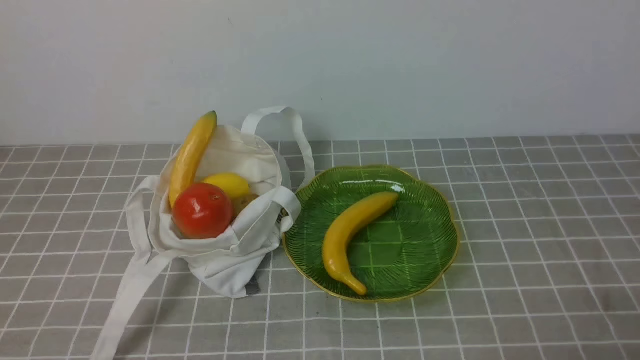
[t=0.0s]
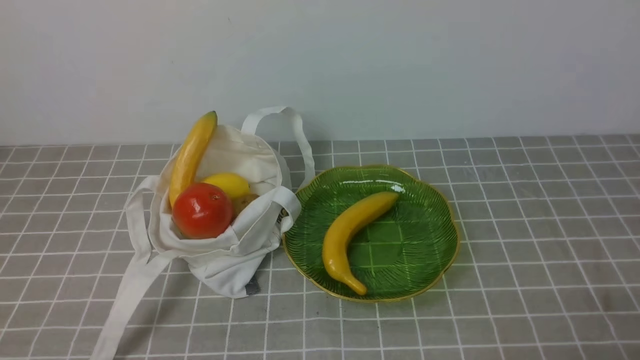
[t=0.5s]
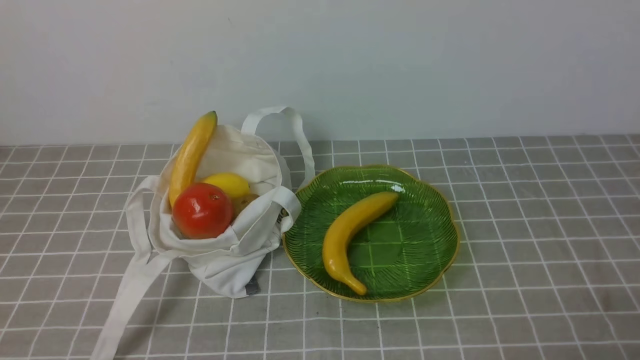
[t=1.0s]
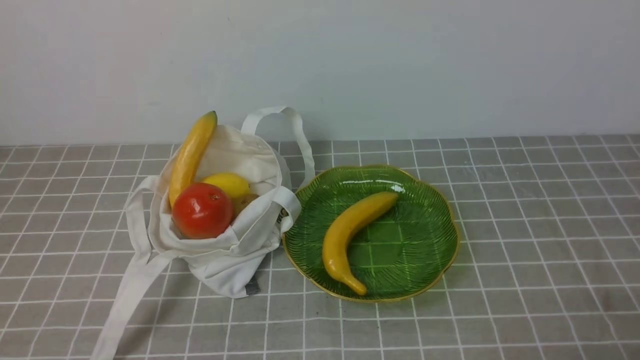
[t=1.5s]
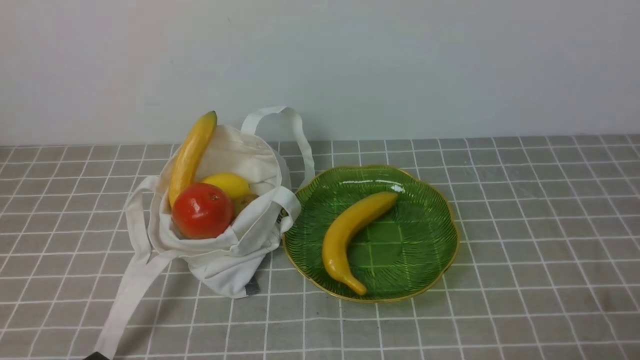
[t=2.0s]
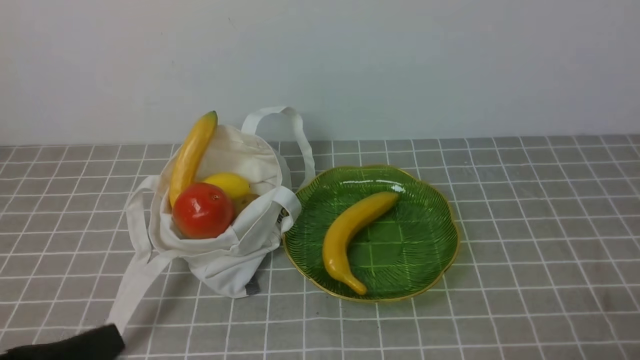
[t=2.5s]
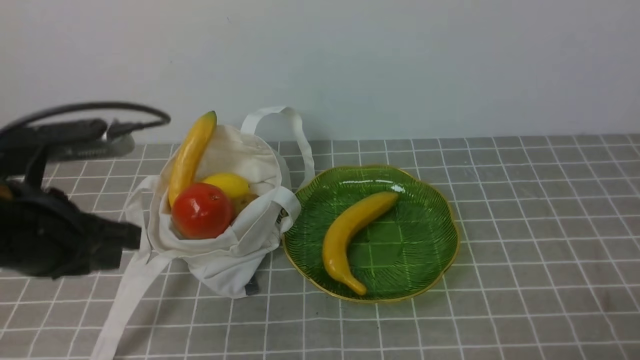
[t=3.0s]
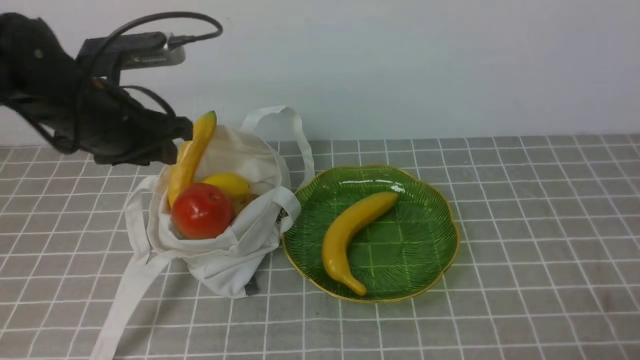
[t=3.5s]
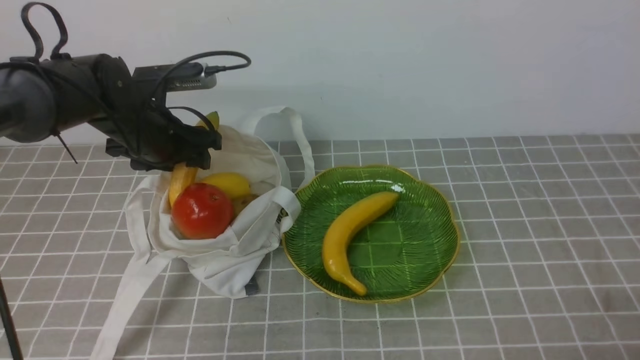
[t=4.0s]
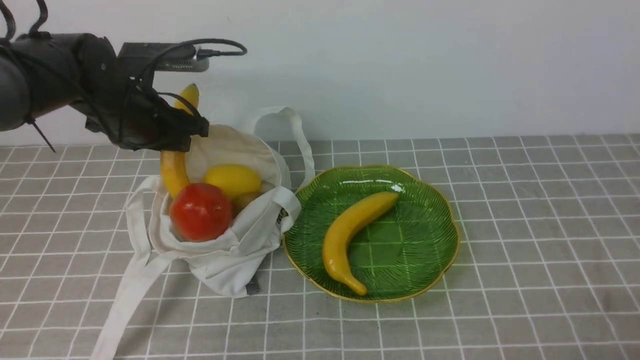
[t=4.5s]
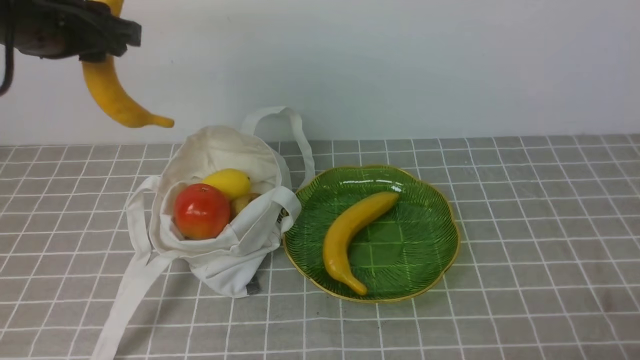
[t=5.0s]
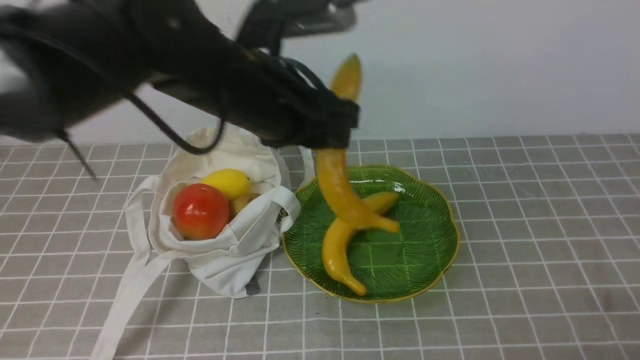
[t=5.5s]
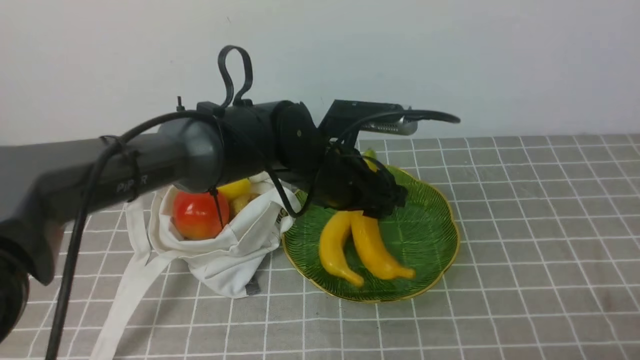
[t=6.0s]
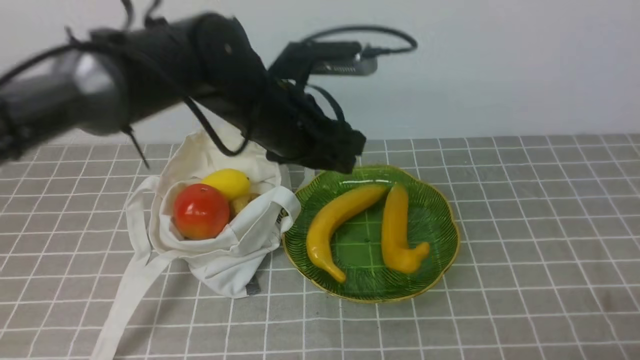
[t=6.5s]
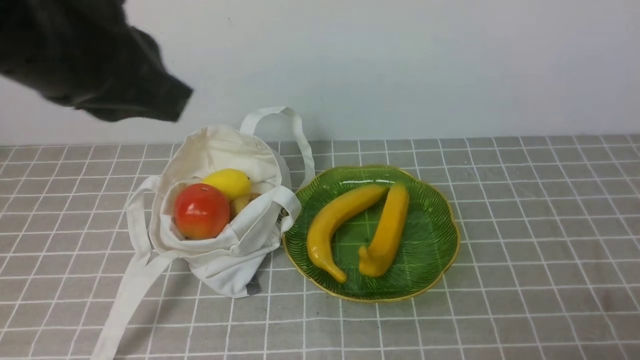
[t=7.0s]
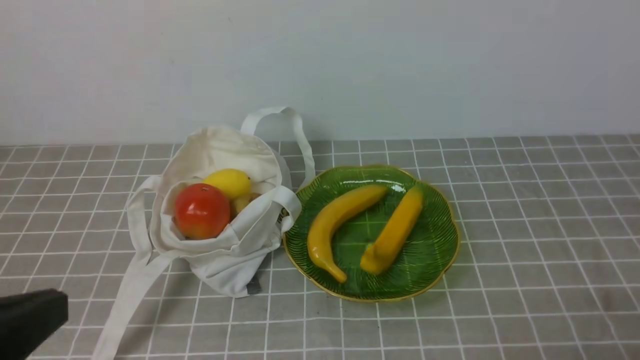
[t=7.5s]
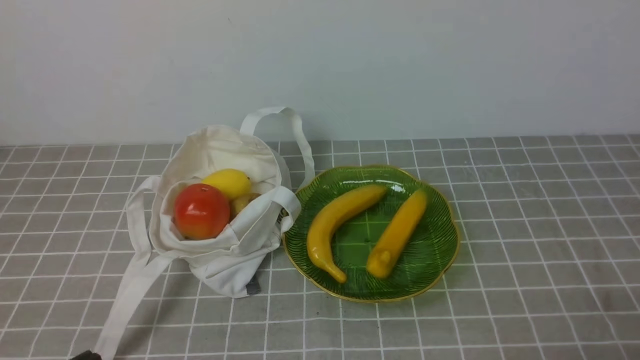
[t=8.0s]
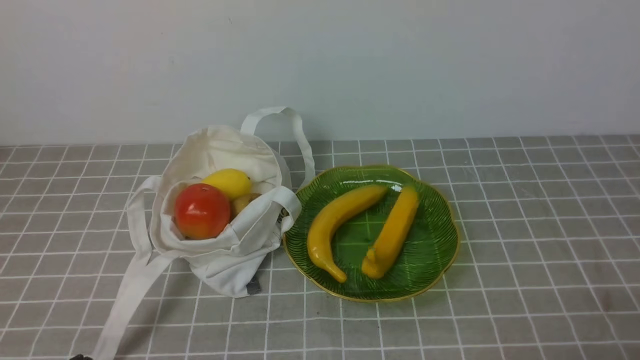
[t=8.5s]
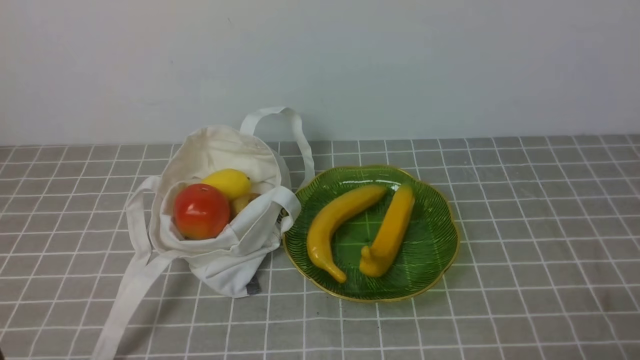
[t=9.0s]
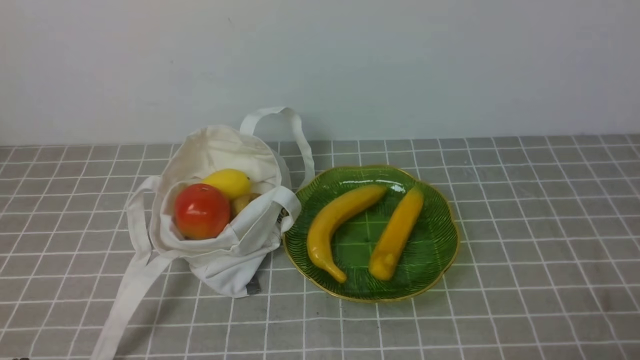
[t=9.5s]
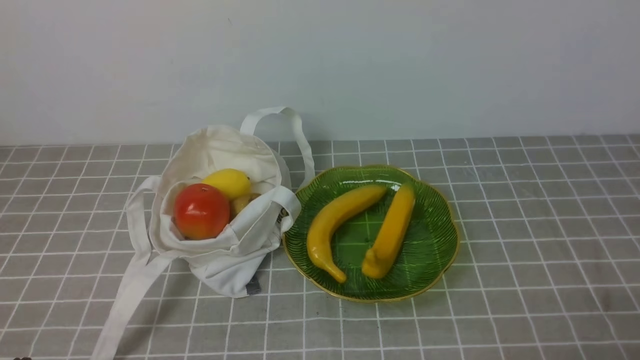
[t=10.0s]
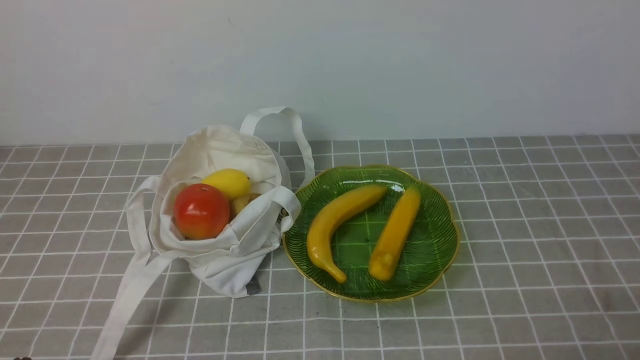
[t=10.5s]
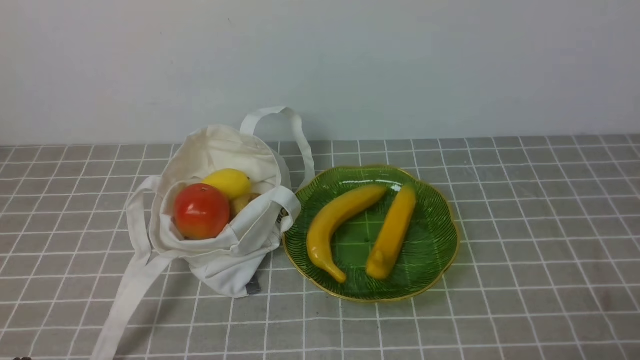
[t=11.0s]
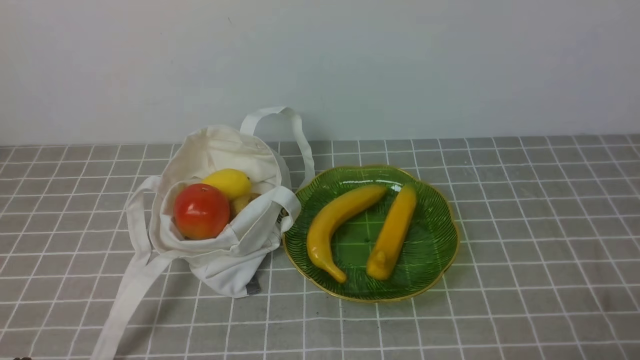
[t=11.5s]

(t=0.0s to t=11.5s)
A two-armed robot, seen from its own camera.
Step, t=0.0s - t=4.0s: use the left arm to grab a banana from the bag.
Step, t=5.0s - t=6.0s: use the left arm to put the banana into the empty plate on the right.
t=2.0s - t=4.0s: The left gripper heads forward, covering approximately 35 cm, and opens its fingers.
t=4.0s - t=6.0s: The left gripper heads to the right, covering approximately 20 cm.
t=6.0s - t=7.5s: The left gripper heads backward, to the left and upward, covering roughly 35 cm, and closes up.
t=7.5s - t=9.5s: The left gripper travels downward by about 20 cm.
t=9.5s - t=11.5s: Both grippers stay put.

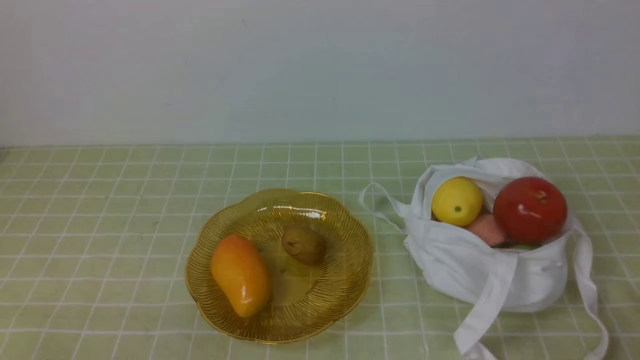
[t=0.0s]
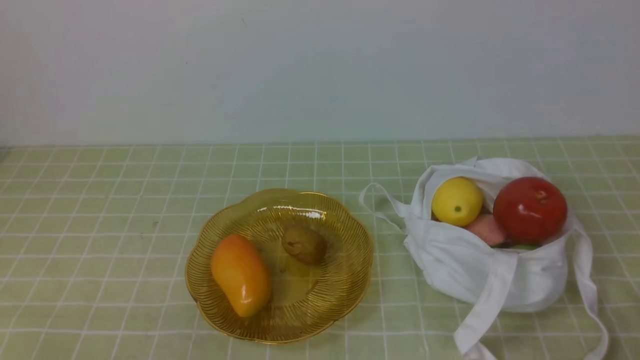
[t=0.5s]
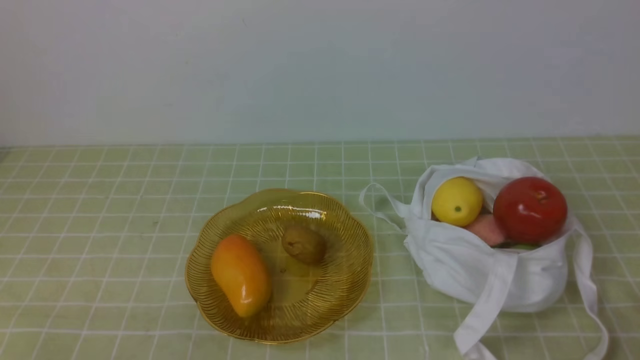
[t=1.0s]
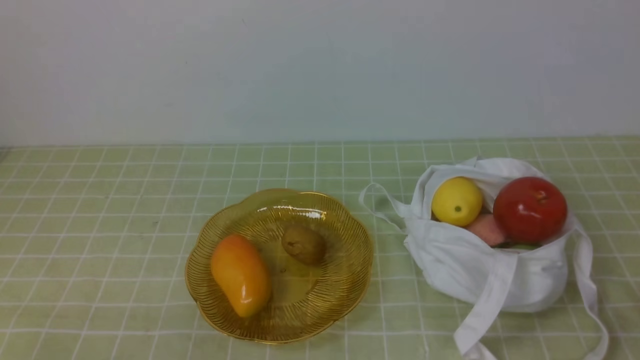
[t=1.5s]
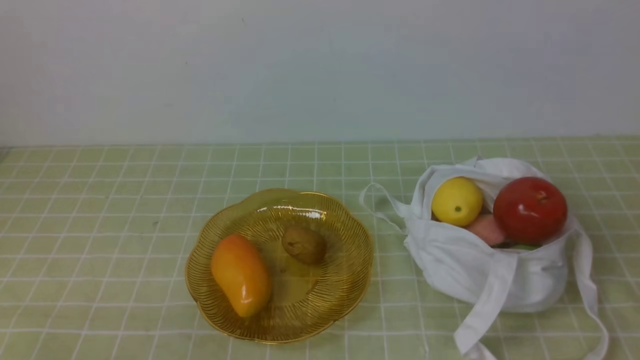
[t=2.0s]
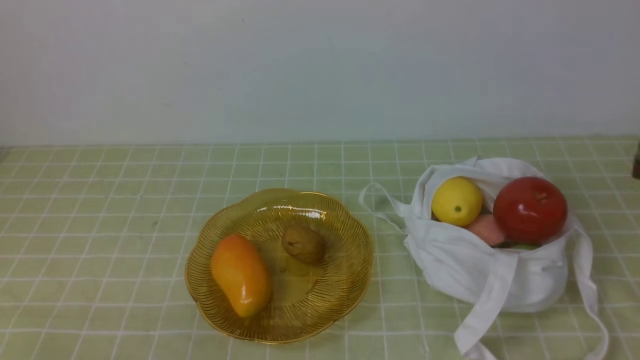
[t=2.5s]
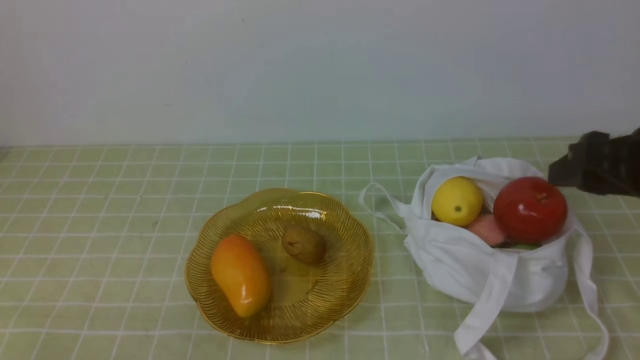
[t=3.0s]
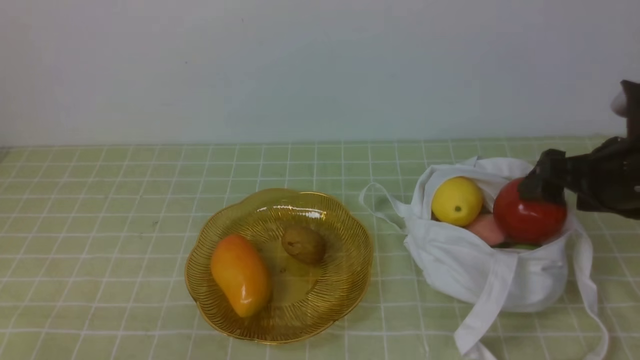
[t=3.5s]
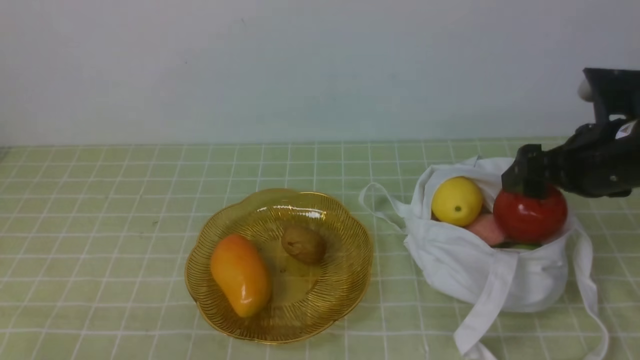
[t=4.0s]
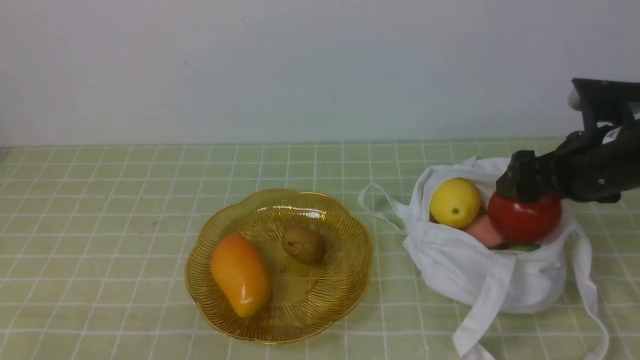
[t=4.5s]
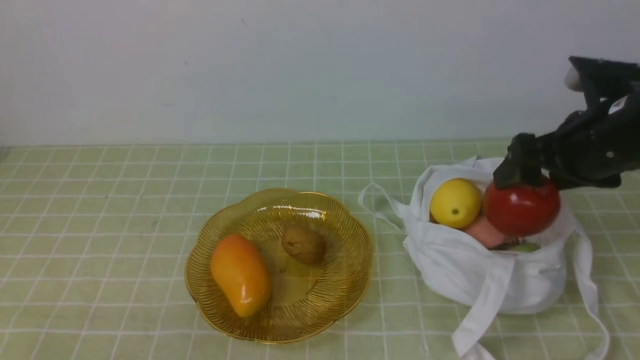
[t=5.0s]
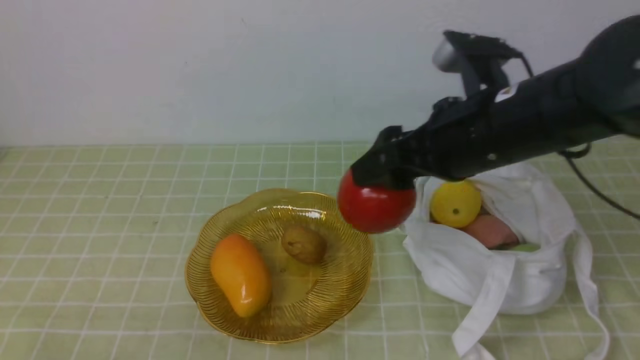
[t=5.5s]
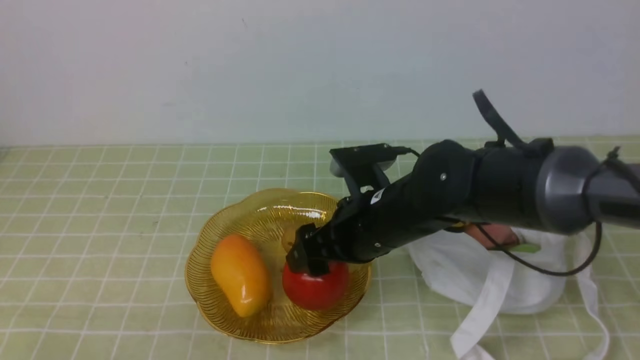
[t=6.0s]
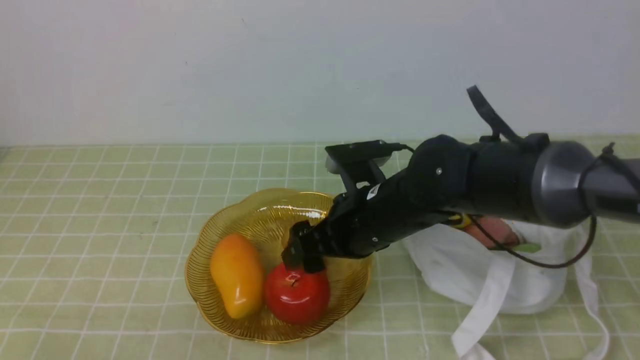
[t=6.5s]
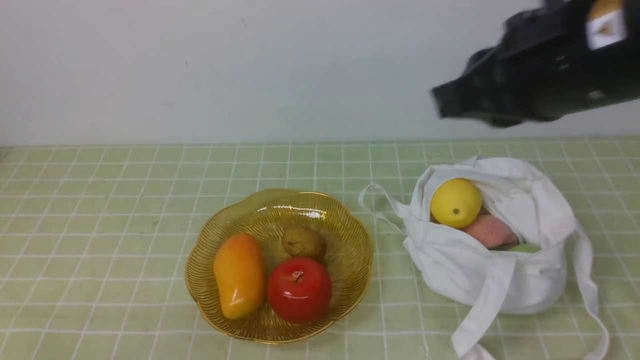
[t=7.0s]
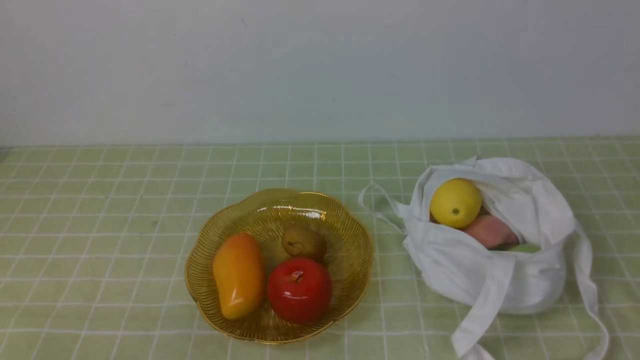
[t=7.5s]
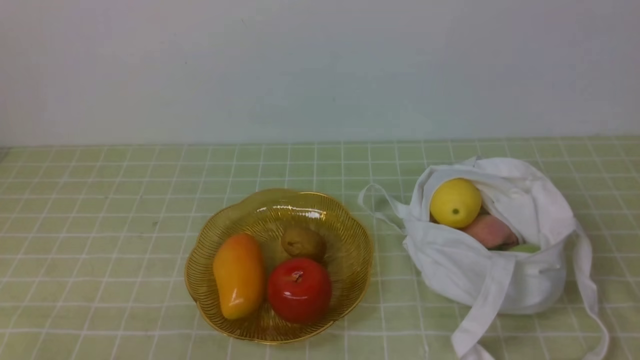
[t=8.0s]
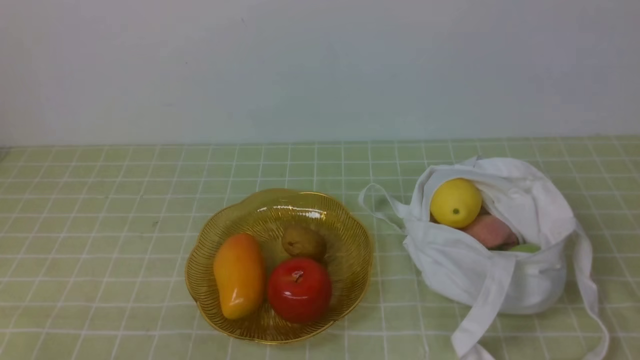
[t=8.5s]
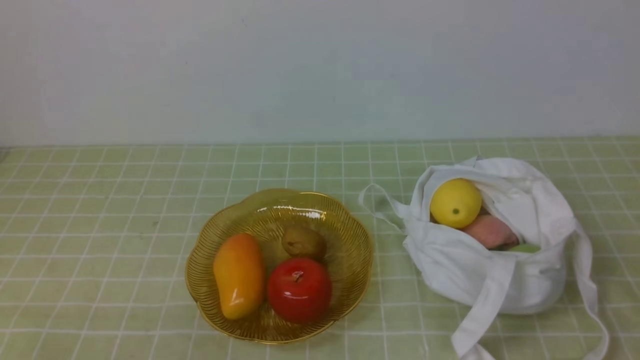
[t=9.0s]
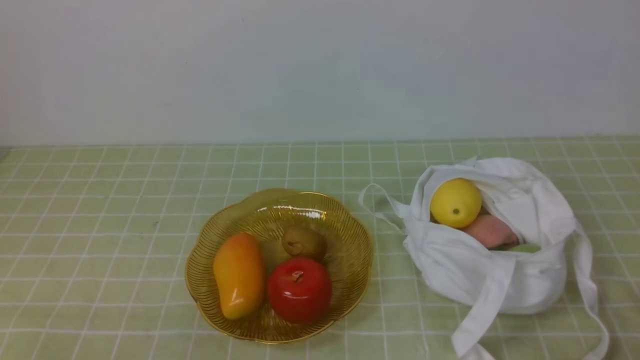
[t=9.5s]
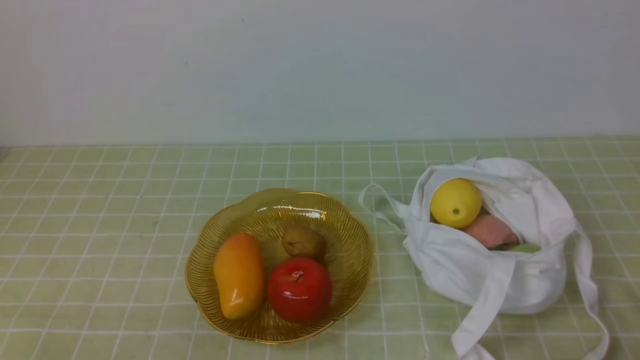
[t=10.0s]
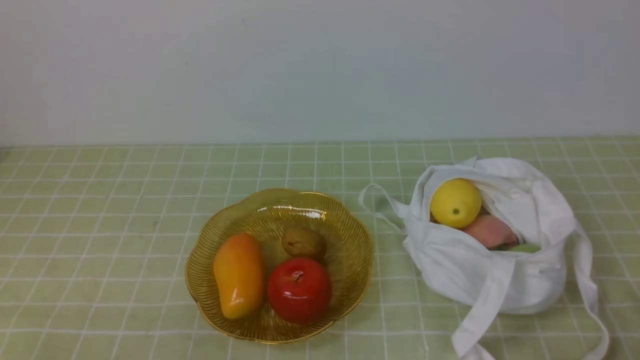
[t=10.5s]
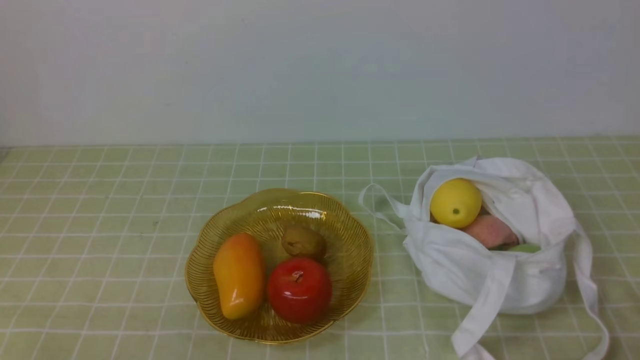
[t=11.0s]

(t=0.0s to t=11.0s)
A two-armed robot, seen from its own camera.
Step, t=0.0s - t=4.5s: use the right arm to grab an apple from the bag.
Step, t=5.0s - t=6.0s: use the right arm to put the apple into the empty plate on the left.
t=2.0s - t=3.5s: The right gripper shifts approximately 20 cm forward, and opens up.
t=3.5s - t=5.5s: The right gripper is displaced to the left by roughly 15 cm.
t=5.5s - t=7.5s: The right gripper shifts approximately 30 cm backward and to the right, and closes.
